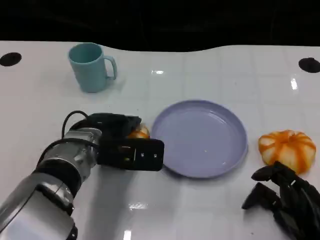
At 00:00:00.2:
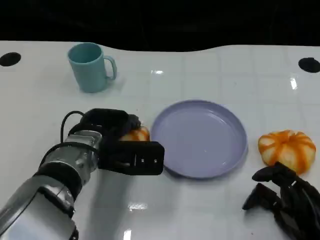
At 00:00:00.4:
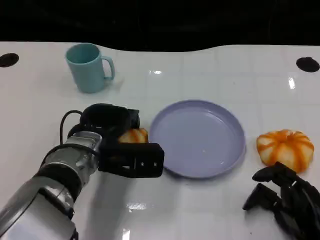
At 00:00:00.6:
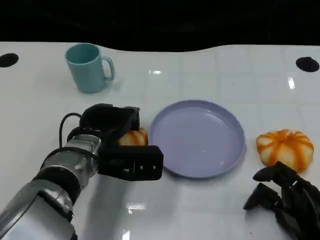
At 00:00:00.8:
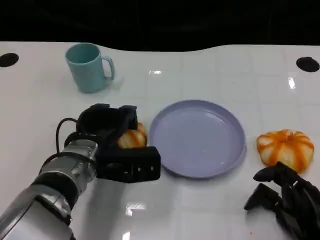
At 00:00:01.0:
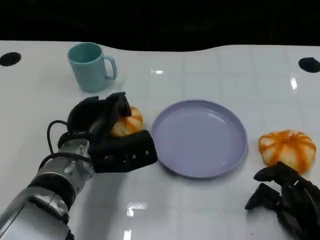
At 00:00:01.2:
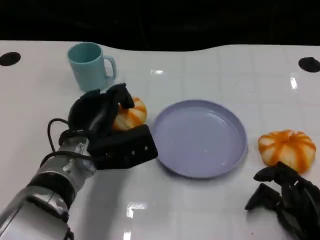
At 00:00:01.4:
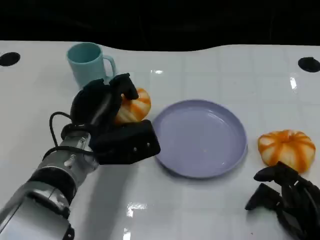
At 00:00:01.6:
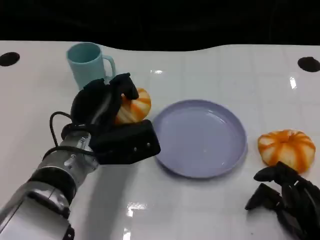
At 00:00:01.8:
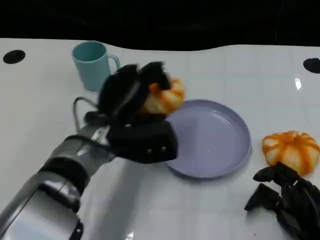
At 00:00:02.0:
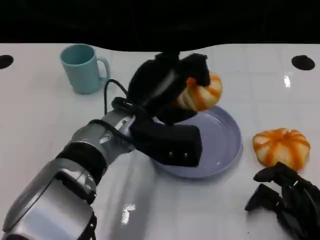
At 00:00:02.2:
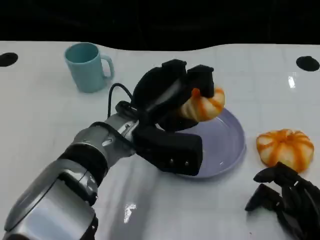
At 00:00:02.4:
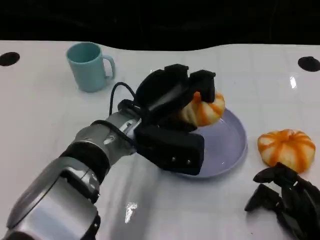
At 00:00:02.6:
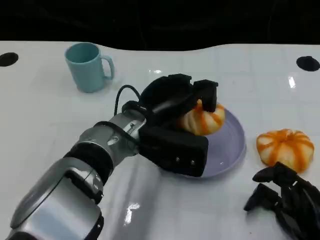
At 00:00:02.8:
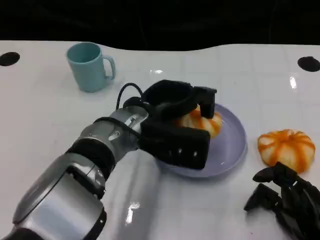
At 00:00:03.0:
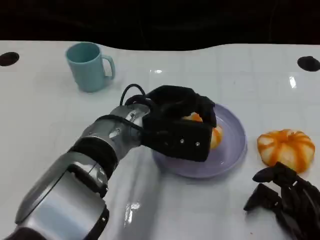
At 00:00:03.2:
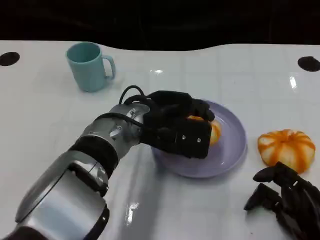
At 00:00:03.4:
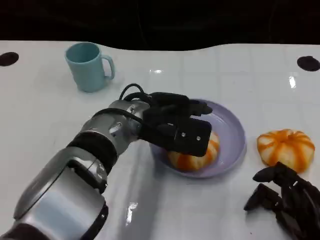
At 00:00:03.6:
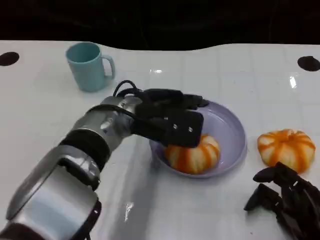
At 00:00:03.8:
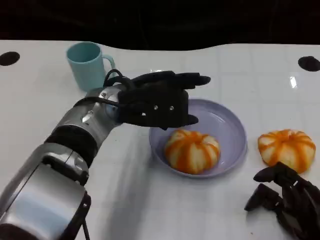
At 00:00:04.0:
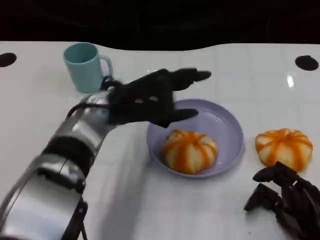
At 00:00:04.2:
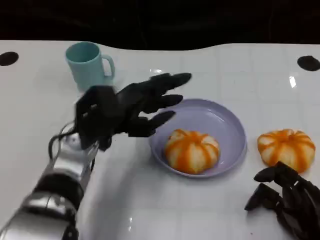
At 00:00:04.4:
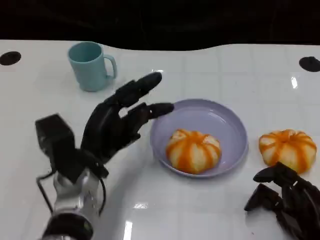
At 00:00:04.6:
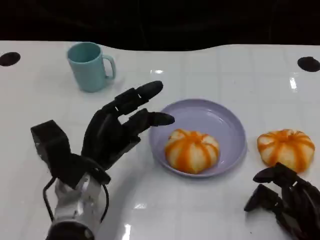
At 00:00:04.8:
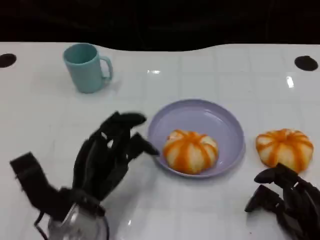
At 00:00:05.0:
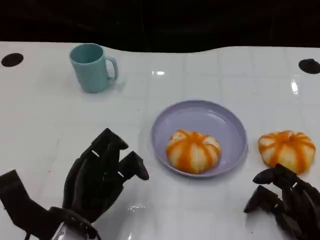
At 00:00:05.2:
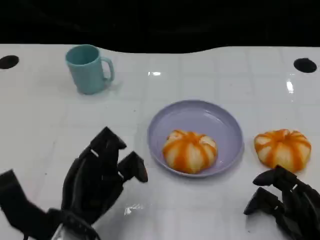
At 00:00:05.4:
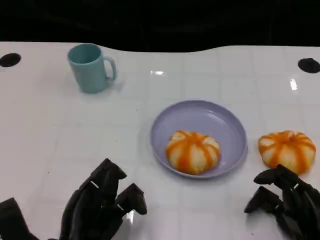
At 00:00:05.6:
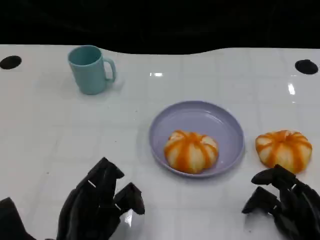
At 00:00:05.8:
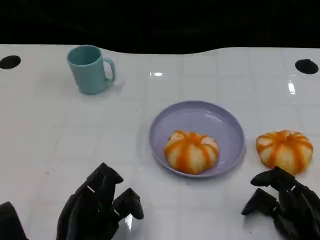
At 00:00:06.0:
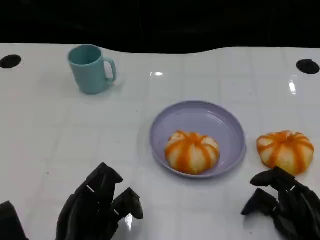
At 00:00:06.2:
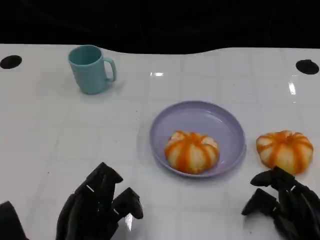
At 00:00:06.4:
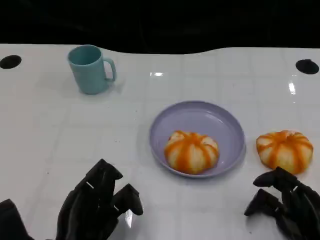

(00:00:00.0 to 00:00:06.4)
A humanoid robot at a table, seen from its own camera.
Task of the whole recording: Grasp the bread from the table and place it into the plate.
00:00:01.6 - 00:00:03.2: The left hand goes about 10 cm to the right and upward.
00:00:03.2 - 00:00:04.8: The left hand travels to the left, backward and downward by some 15 cm.
00:00:04.8 - 00:00:06.4: The left hand heads backward, covering approximately 5 cm.

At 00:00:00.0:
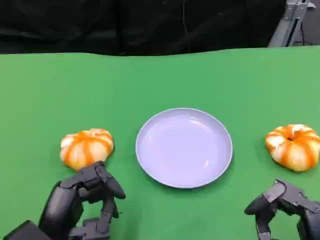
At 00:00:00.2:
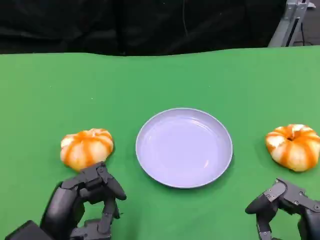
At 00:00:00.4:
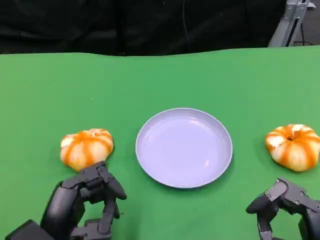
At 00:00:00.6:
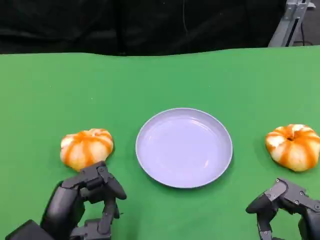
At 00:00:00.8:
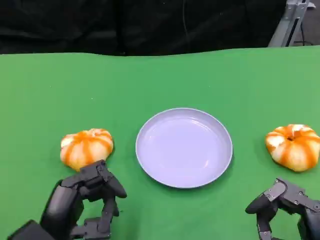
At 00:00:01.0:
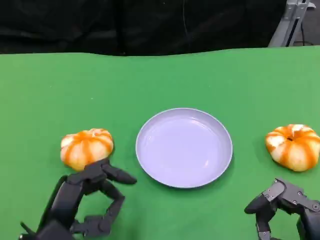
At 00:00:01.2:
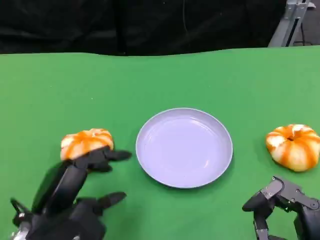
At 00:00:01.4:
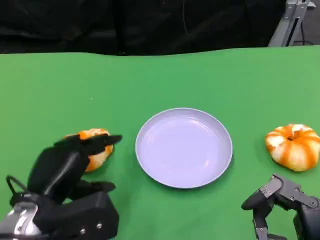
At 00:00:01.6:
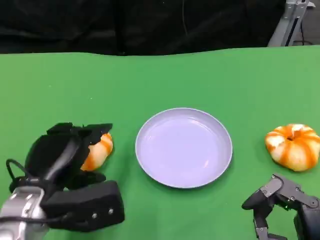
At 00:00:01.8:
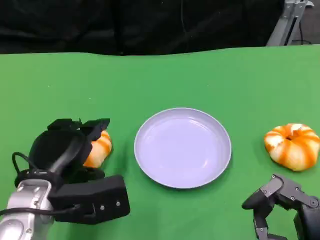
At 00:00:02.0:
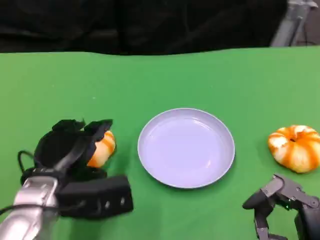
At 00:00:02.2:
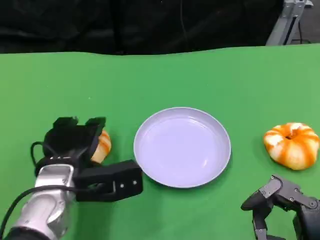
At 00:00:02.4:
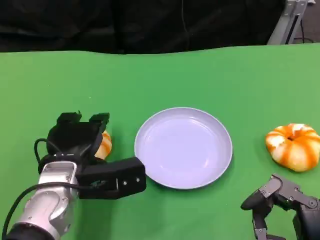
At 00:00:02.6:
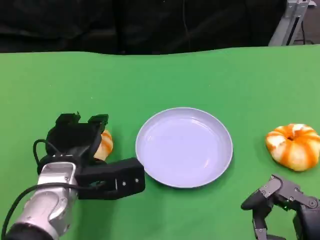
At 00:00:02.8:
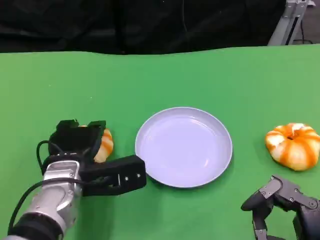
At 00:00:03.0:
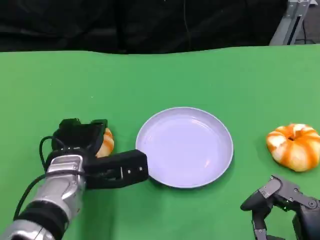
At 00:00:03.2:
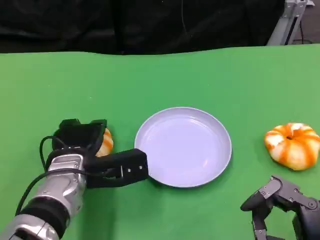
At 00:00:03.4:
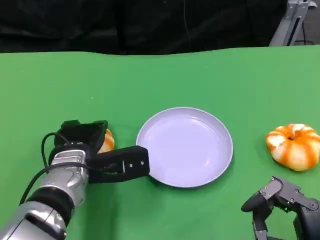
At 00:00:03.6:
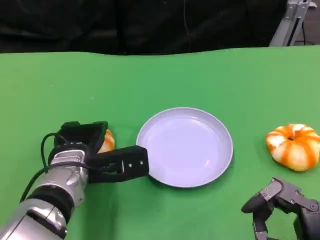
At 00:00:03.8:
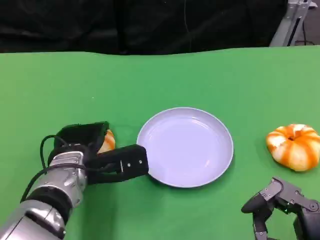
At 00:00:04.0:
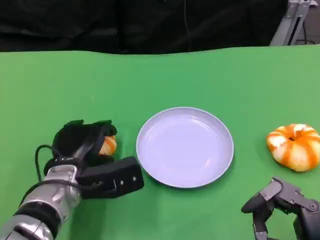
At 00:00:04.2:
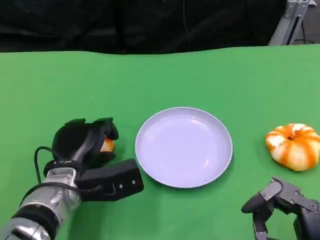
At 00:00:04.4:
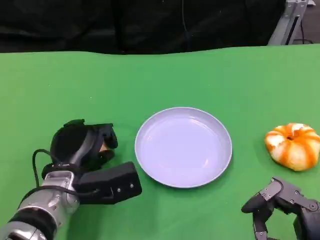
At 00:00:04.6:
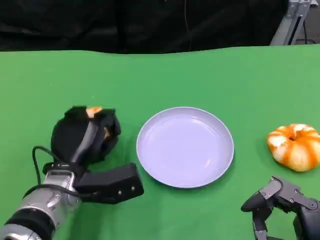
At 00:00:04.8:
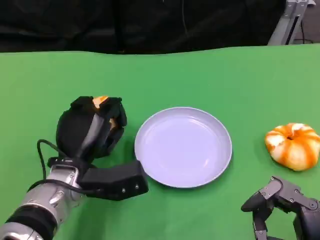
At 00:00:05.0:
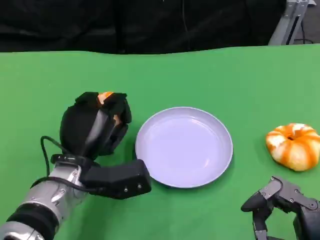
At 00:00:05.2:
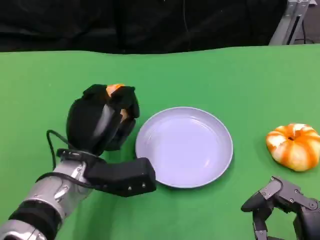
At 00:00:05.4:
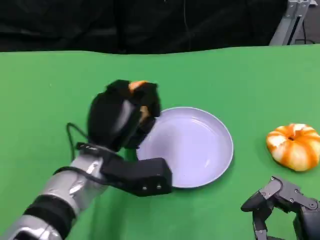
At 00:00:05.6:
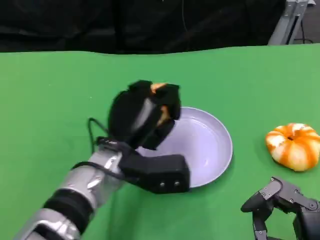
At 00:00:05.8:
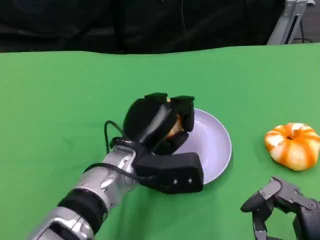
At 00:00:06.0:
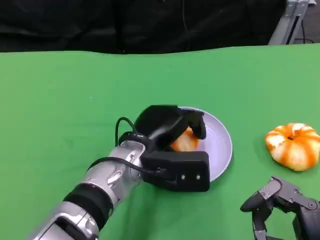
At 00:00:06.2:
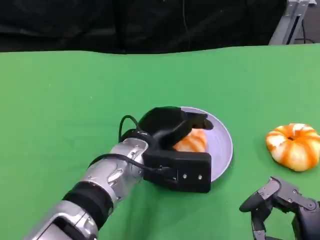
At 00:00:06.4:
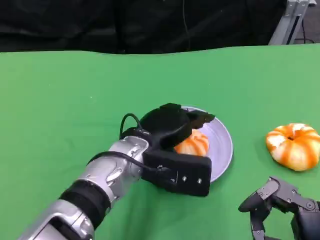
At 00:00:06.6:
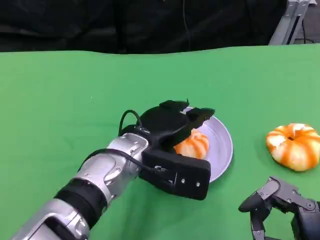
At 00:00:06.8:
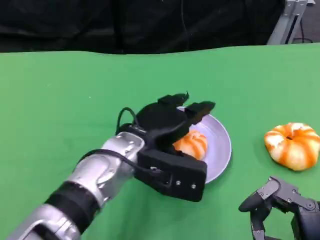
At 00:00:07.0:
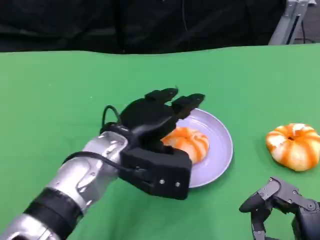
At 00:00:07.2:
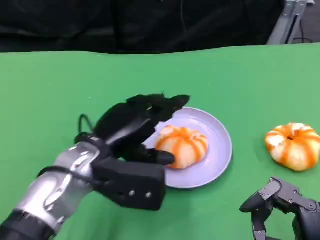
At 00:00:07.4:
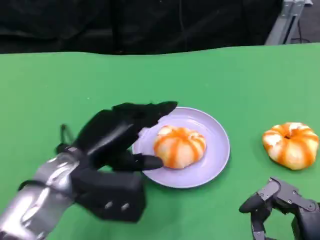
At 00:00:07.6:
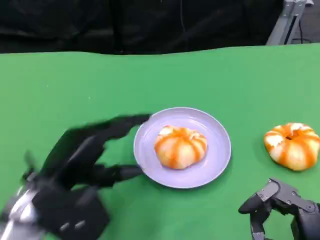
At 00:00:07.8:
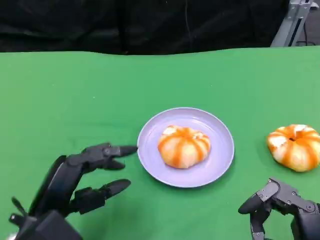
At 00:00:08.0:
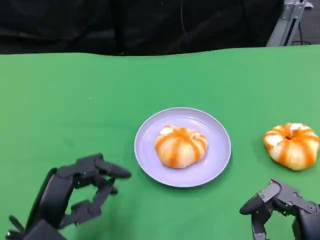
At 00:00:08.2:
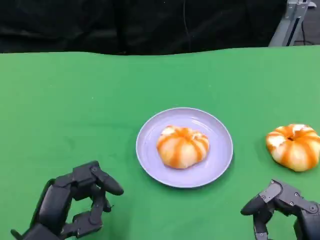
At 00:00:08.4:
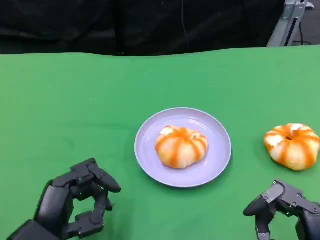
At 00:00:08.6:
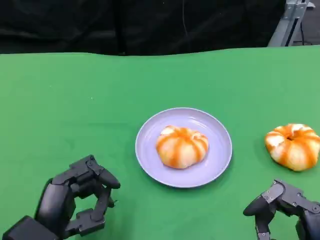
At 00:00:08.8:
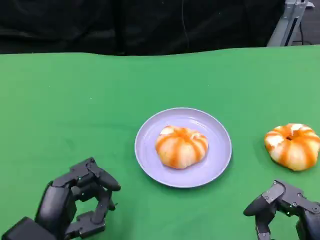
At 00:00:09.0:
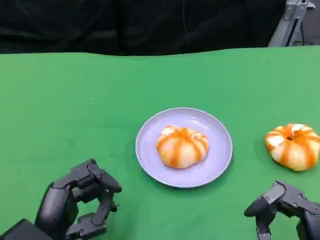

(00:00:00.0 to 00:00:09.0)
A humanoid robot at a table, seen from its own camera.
Task of the whole recording: Grasp the bread from the table and place it into the plate.
00:00:00.0 - 00:00:01.6: The left hand is displaced forward by about 5 cm.
00:00:01.6 - 00:00:03.0: The left hand goes approximately 5 cm forward.
00:00:04.4 - 00:00:06.0: The left hand heads to the right and upward, covering roughly 10 cm.
00:00:06.0 - 00:00:07.6: The left hand is displaced to the left and backward by some 15 cm.
00:00:07.6 - 00:00:09.0: The left hand moves some 5 cm.

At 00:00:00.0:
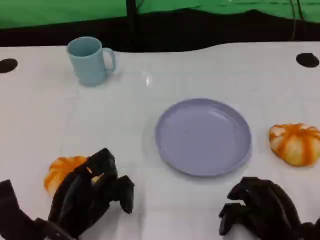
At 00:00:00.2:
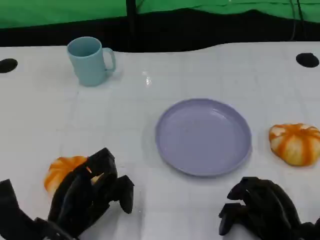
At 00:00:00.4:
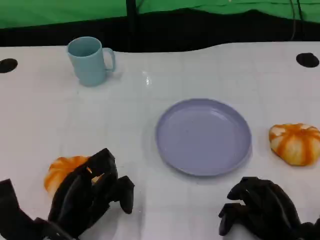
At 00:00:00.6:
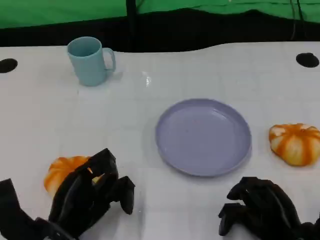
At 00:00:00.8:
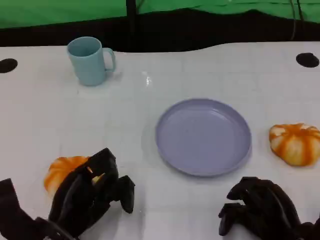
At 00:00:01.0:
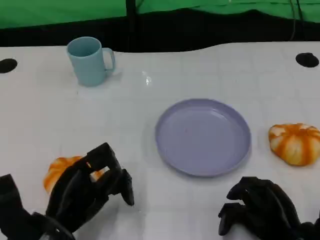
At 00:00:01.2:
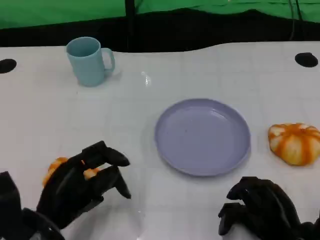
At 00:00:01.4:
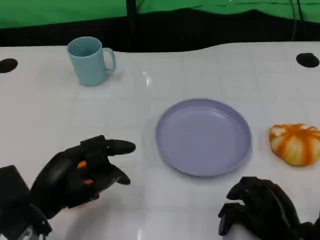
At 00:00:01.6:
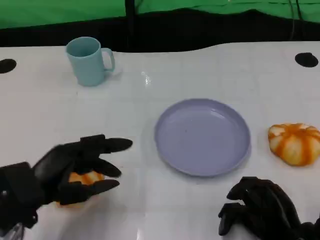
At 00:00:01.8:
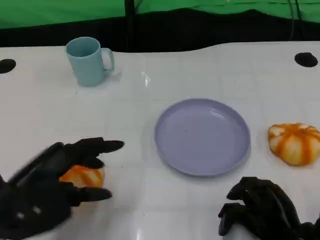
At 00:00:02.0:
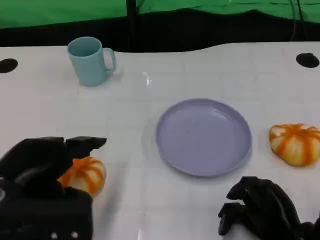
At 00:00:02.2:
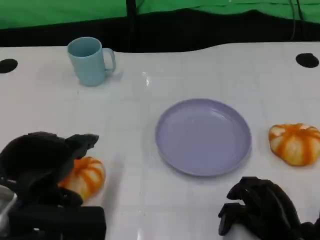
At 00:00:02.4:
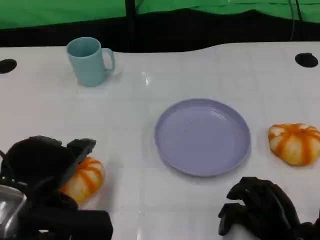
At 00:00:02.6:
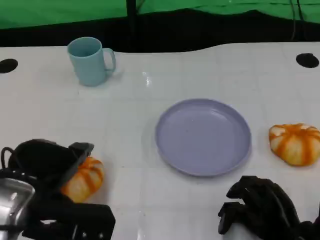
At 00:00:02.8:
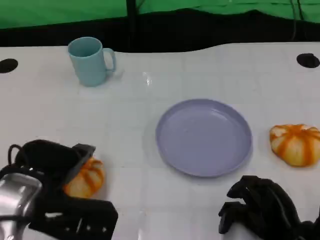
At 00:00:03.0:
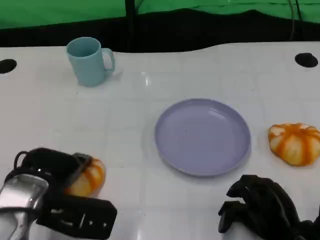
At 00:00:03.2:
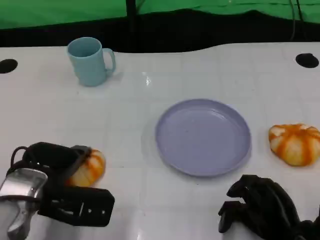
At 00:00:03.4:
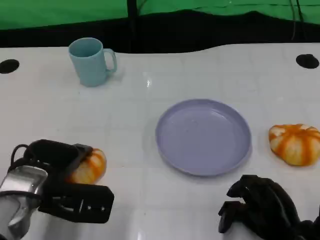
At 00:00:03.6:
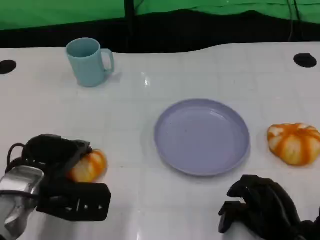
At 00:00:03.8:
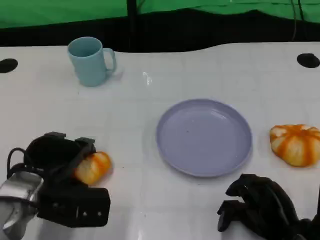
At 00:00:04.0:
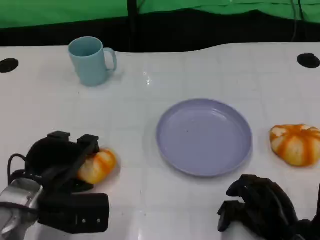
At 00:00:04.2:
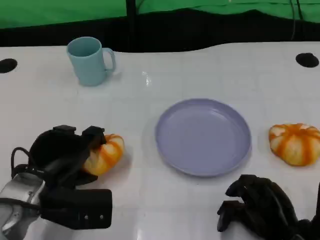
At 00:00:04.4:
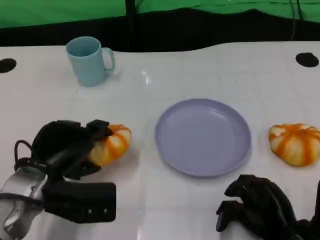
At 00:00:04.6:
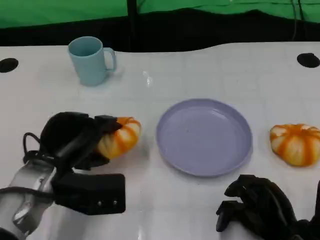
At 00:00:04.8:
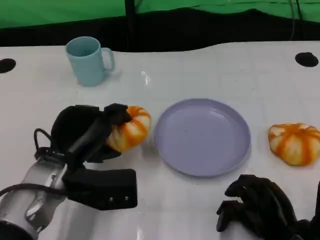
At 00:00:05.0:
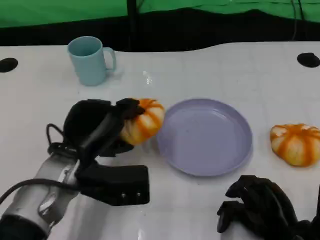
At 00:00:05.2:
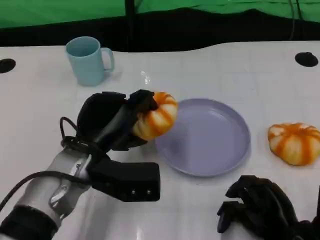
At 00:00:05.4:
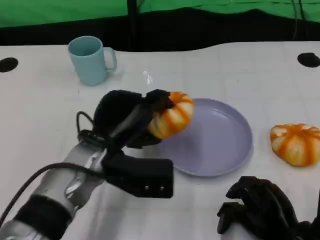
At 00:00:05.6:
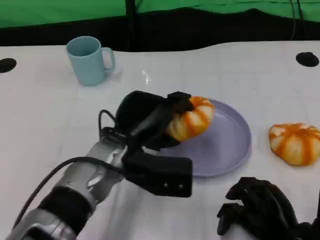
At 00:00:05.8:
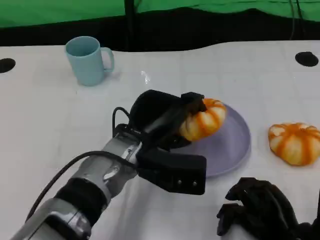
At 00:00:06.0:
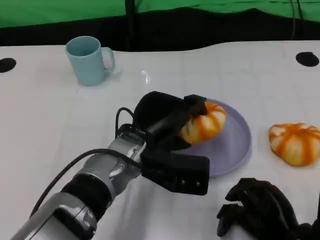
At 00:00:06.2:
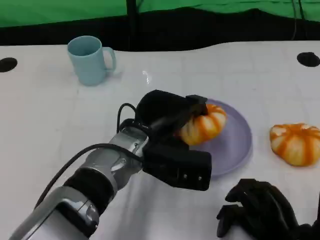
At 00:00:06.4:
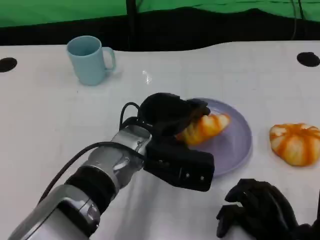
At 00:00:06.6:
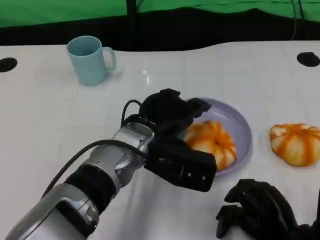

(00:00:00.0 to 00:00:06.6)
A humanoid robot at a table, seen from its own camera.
Task of the whole recording: Grasp the bread from the table and place it into the plate.
00:00:00.0 - 00:00:01.6: The left hand is displaced upward by about 10 cm.
00:00:01.6 - 00:00:03.2: The left hand is displaced forward by approximately 5 cm, and reaches roughly 5 cm upward, then returns.
00:00:03.2 - 00:00:05.0: The left hand moves to the right, about 5 cm.
00:00:05.0 - 00:00:06.6: The left hand moves to the right, roughly 10 cm.
